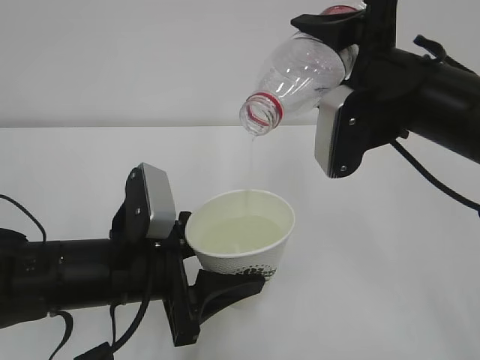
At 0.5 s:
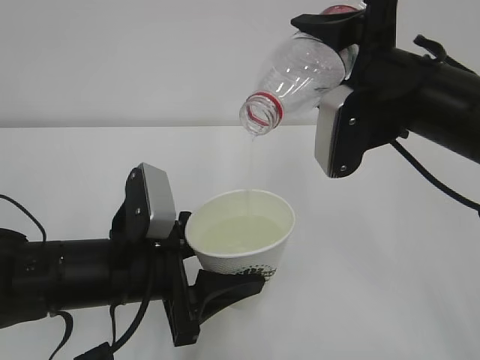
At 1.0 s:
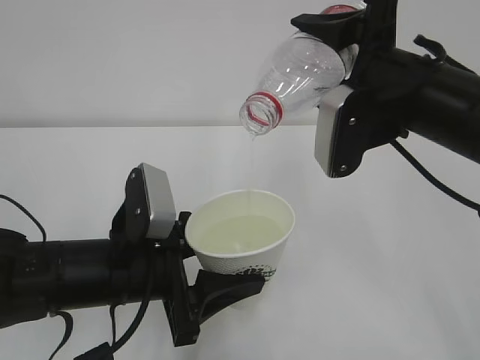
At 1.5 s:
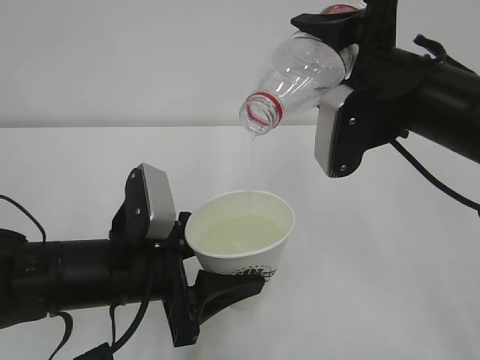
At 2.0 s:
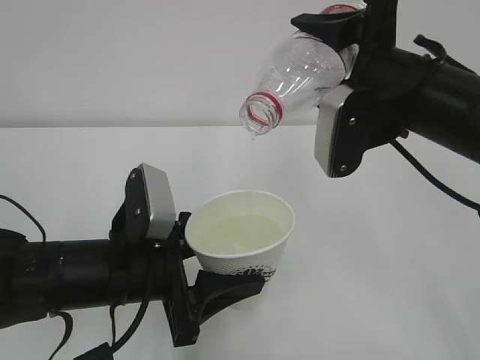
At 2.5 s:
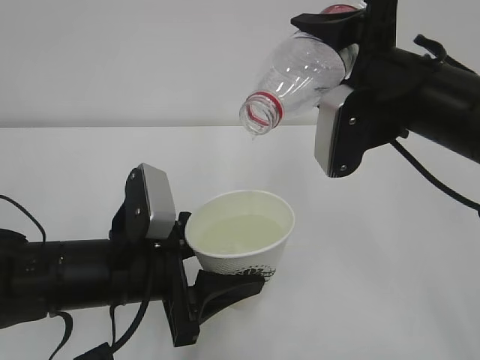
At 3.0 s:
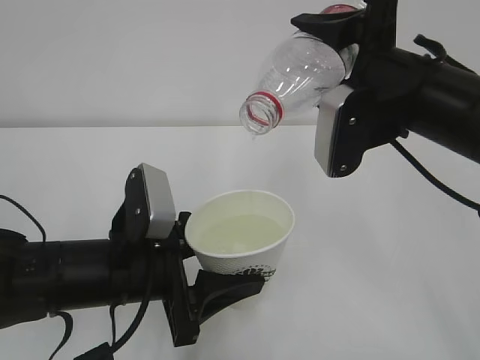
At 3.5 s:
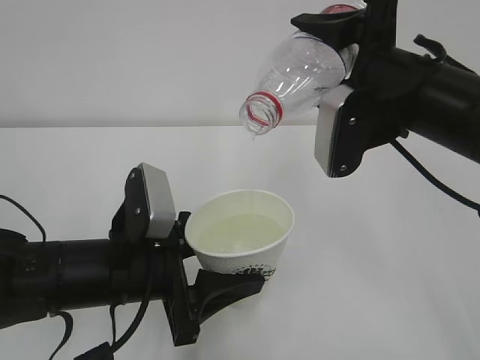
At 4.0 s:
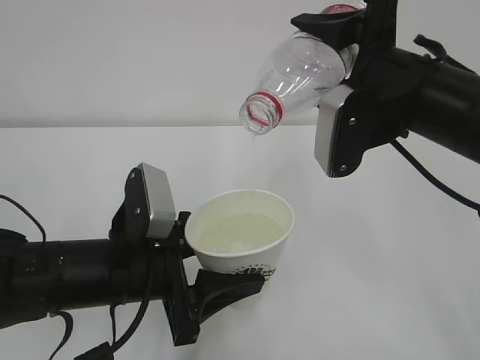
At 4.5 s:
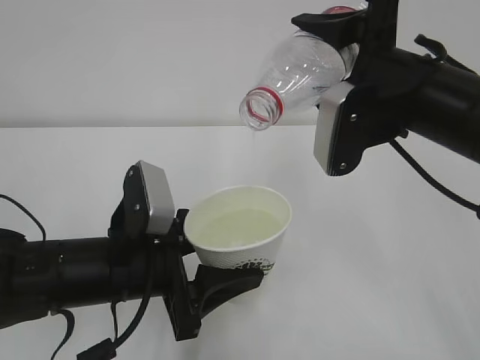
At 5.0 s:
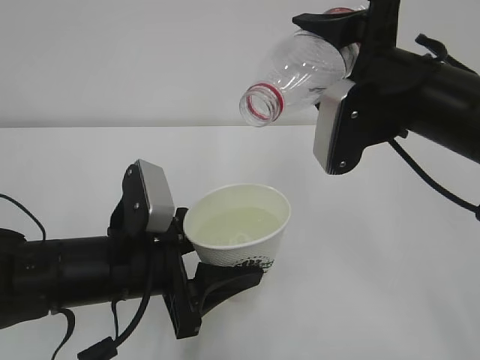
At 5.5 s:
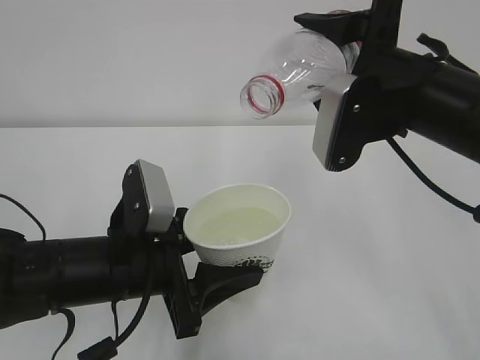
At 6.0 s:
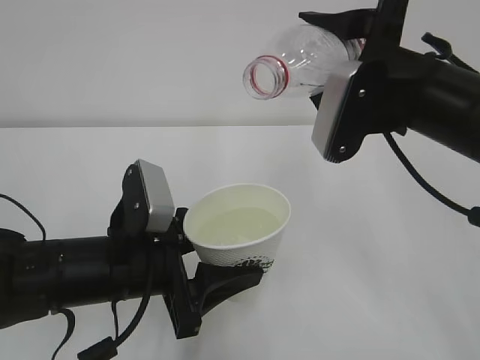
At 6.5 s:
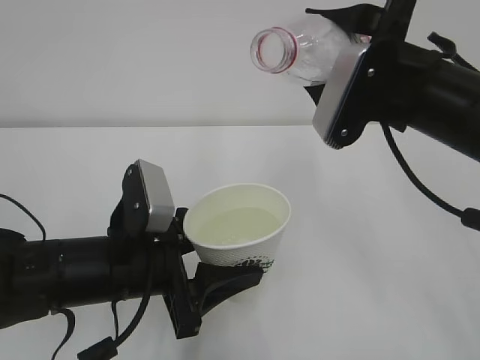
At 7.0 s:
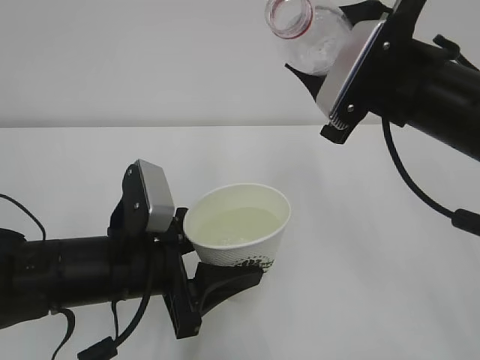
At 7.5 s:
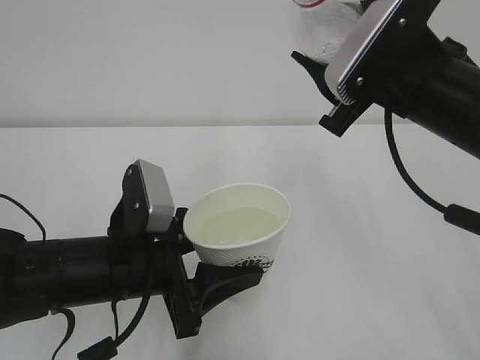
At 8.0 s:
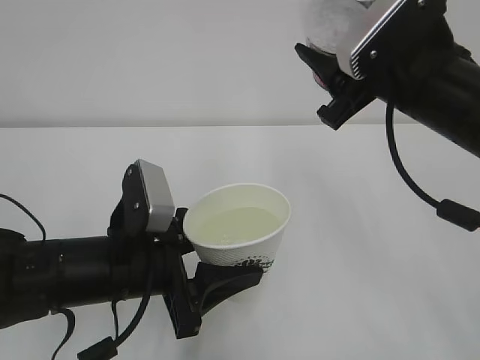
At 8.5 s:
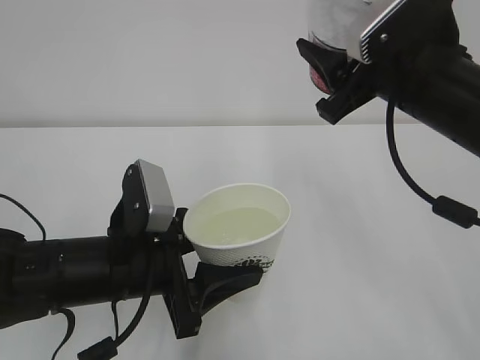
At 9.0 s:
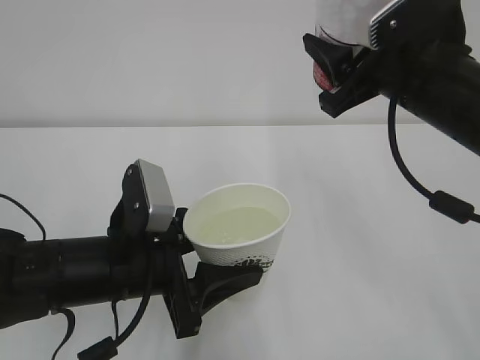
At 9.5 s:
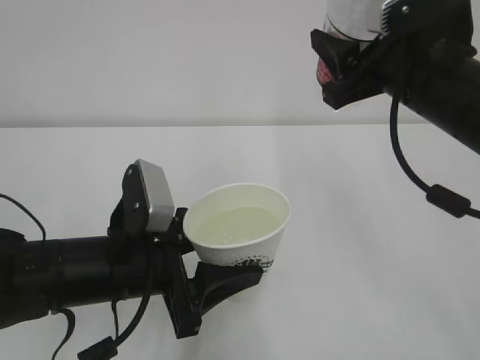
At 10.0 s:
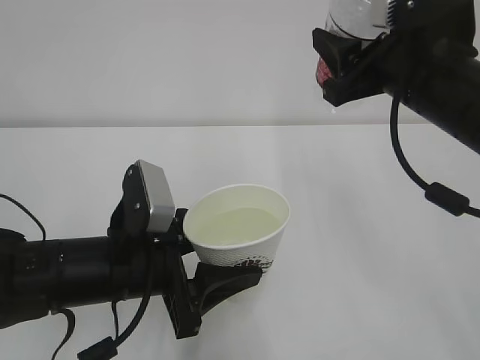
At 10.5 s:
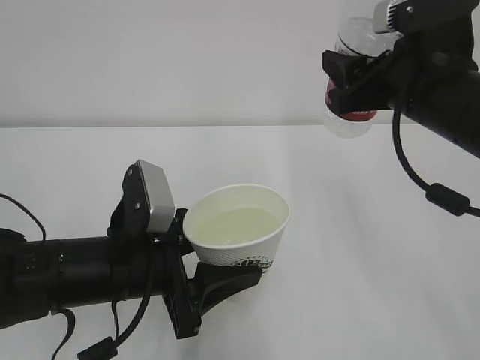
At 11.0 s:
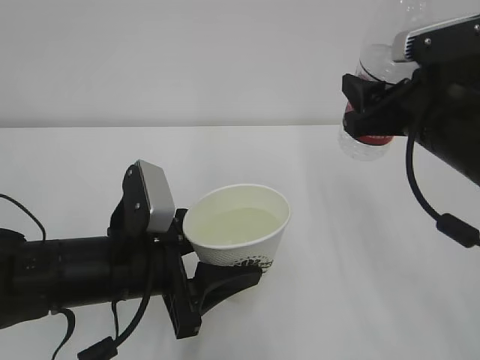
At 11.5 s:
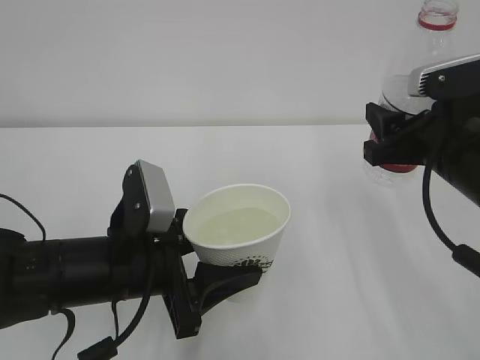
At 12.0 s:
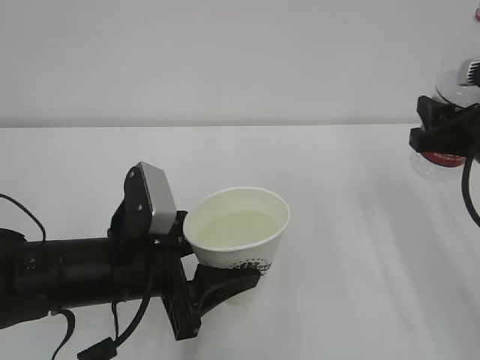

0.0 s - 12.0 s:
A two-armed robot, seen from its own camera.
0.0 s - 4.0 s: The two grippers keep their place.
4.0 s - 6.0 s: The grippers move only a little.
10.0 s - 12.0 s: The right gripper heads to the right and downward, covering some 10 cm.

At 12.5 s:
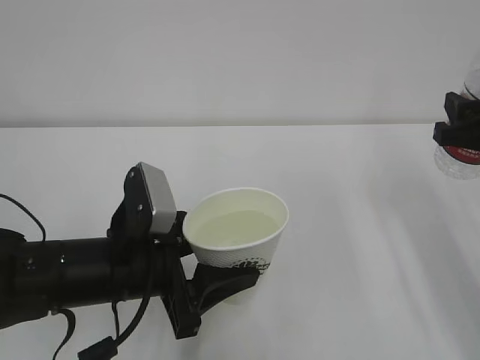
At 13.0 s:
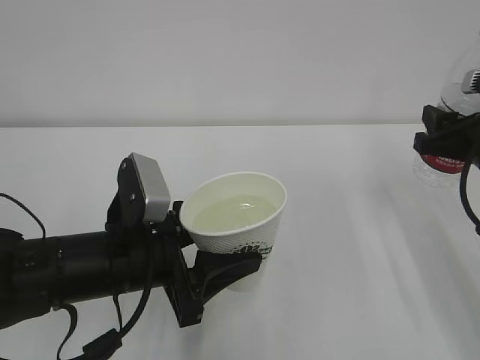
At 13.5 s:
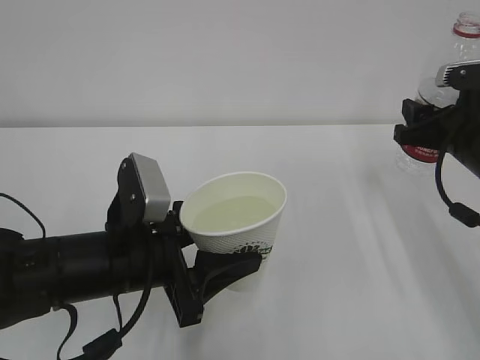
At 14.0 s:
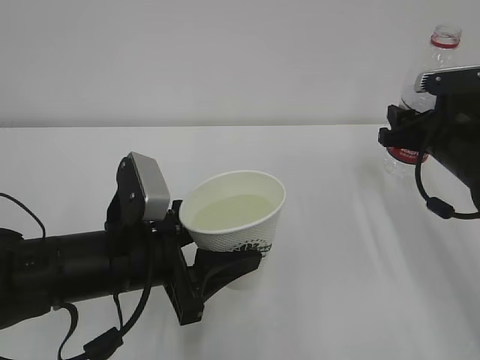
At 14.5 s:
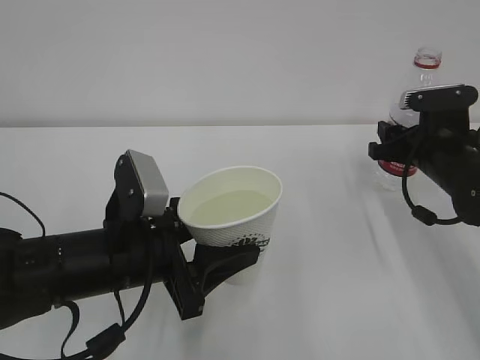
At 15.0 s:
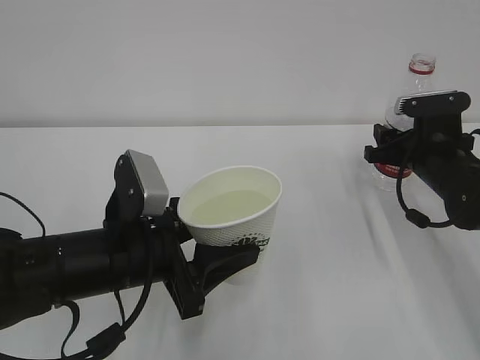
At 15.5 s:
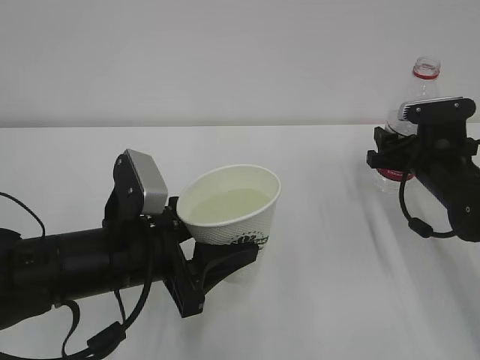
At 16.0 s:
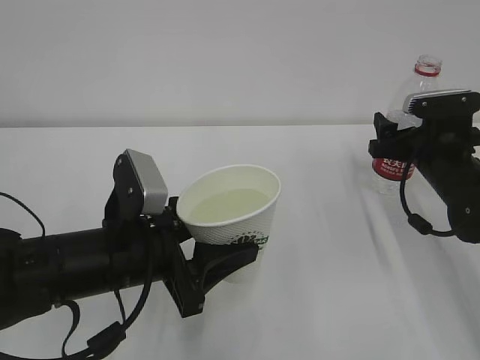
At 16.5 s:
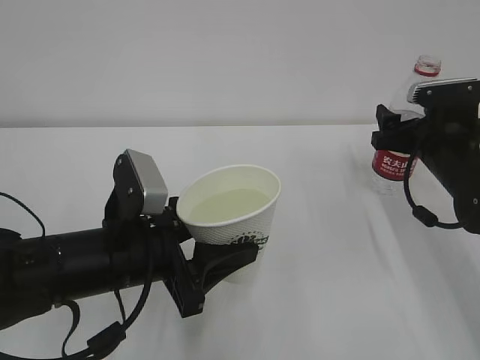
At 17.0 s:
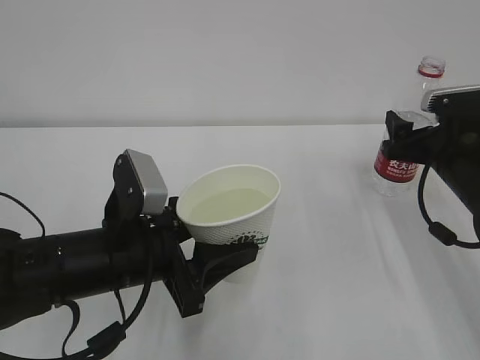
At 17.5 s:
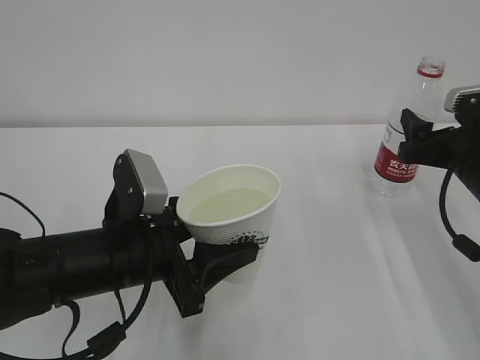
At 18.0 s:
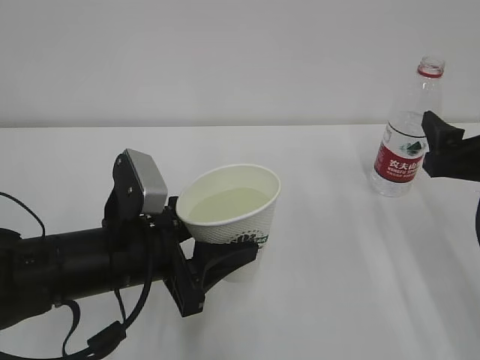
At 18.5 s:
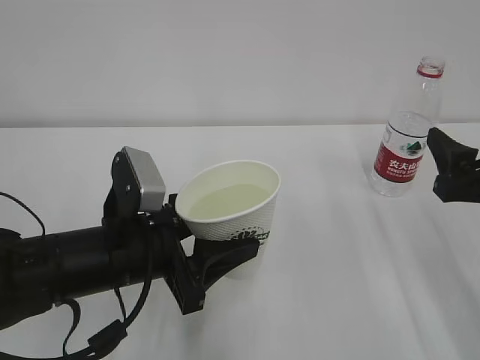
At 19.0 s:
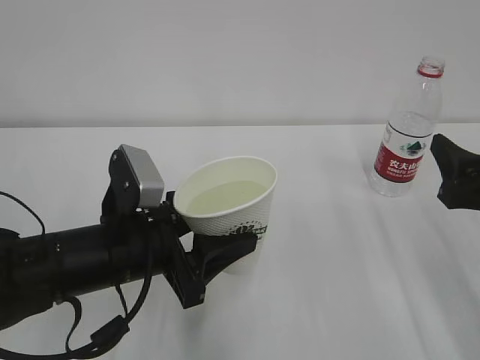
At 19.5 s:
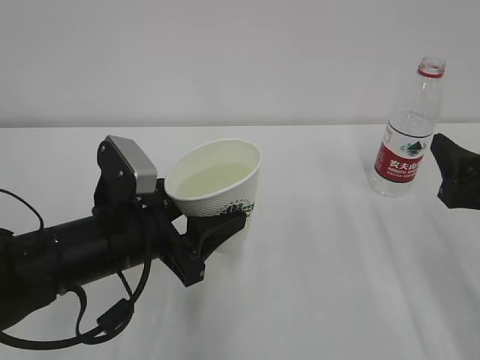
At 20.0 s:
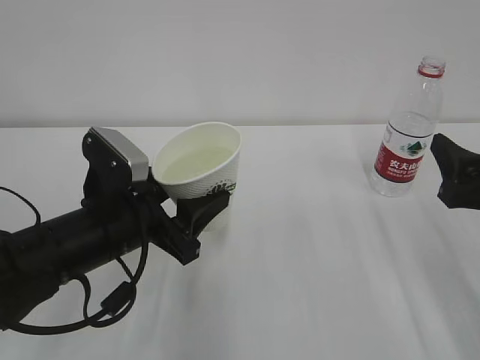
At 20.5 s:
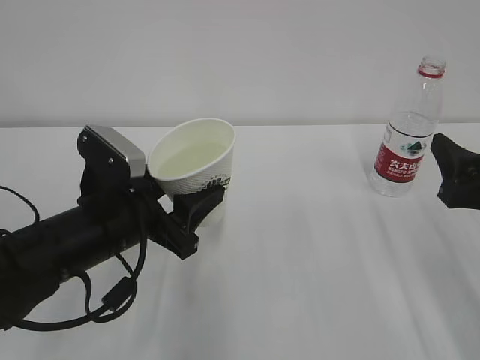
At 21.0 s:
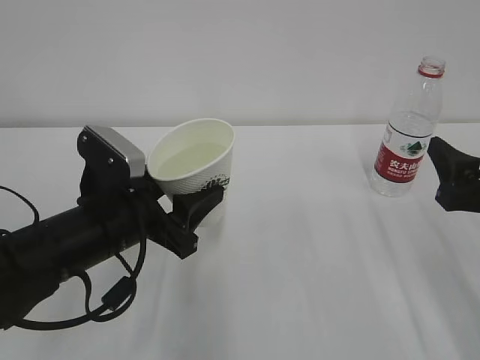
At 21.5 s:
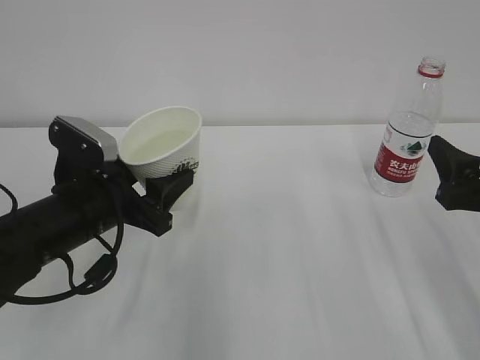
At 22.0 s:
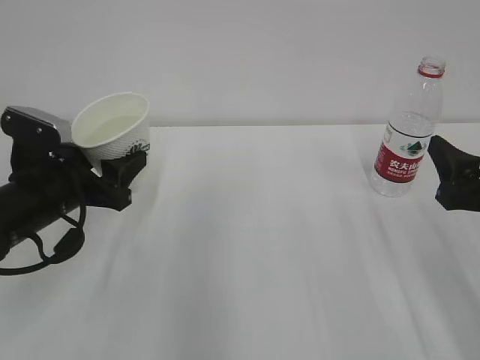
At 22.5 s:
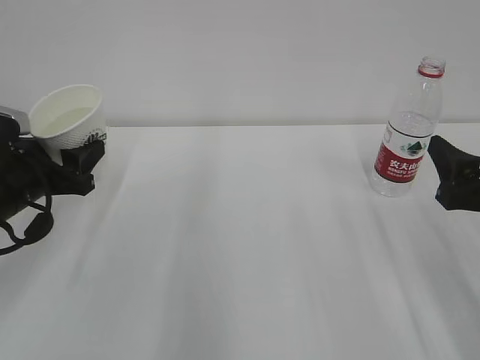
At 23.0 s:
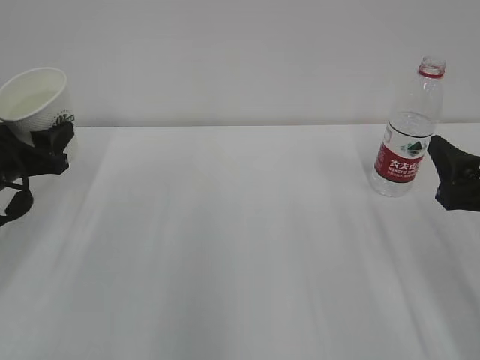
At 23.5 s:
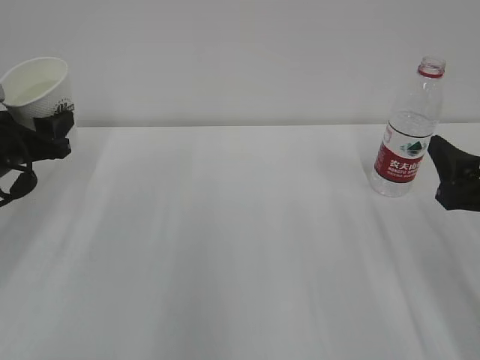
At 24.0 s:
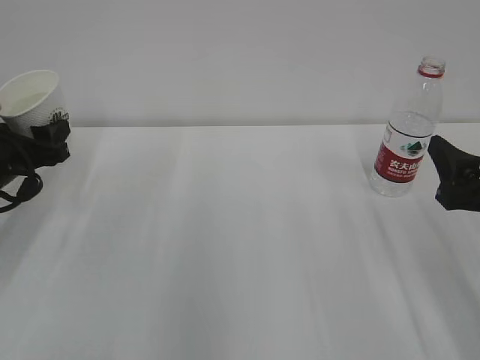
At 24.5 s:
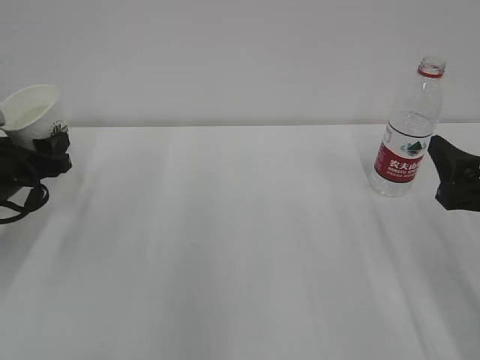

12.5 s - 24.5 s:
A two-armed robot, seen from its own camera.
12.5 s - 14.5 s: The right gripper goes some 15 cm forward and downward.
14.5 s - 16.5 s: The right gripper opens its fingers.
16.5 s - 18.5 s: The right gripper travels backward by roughly 15 cm.
20.5 s - 22.5 s: The left gripper goes about 15 cm to the left and forward.
22.5 s - 24.5 s: The left gripper shifts by some 5 cm.

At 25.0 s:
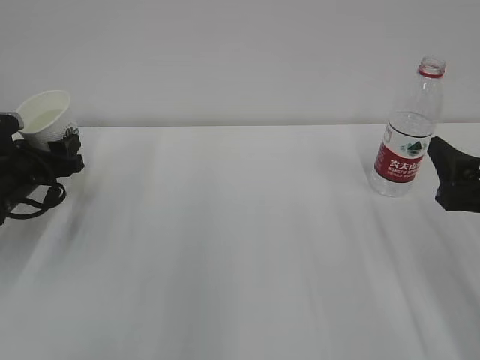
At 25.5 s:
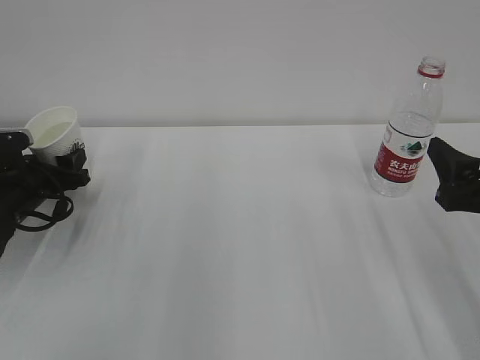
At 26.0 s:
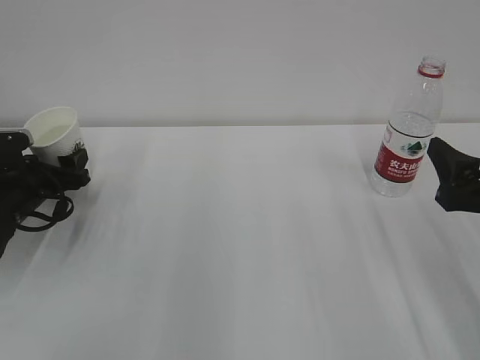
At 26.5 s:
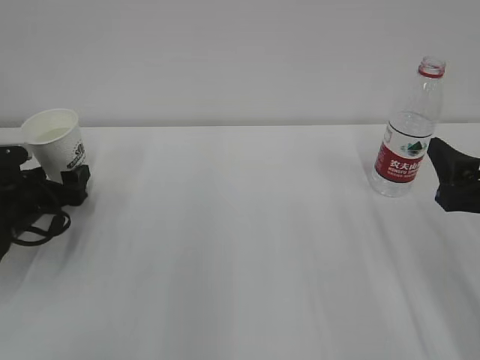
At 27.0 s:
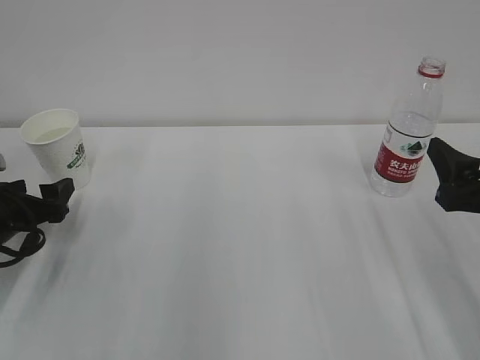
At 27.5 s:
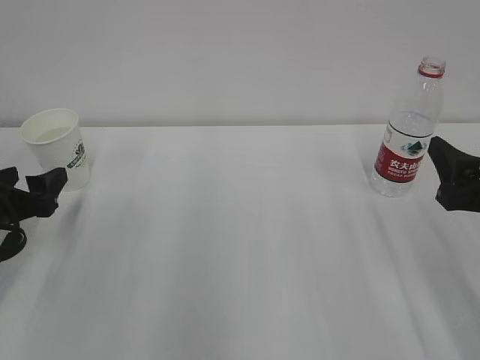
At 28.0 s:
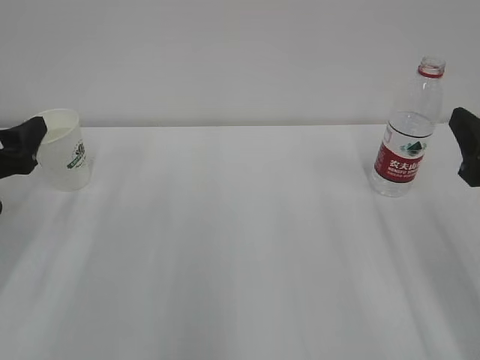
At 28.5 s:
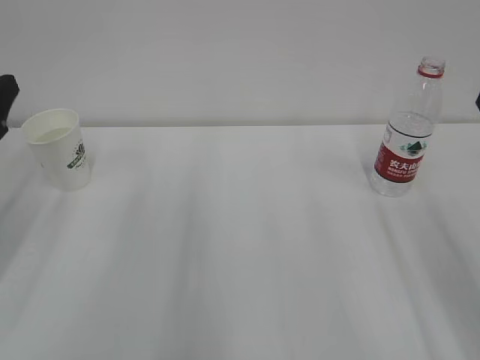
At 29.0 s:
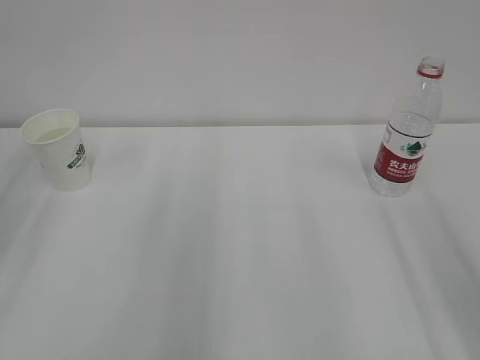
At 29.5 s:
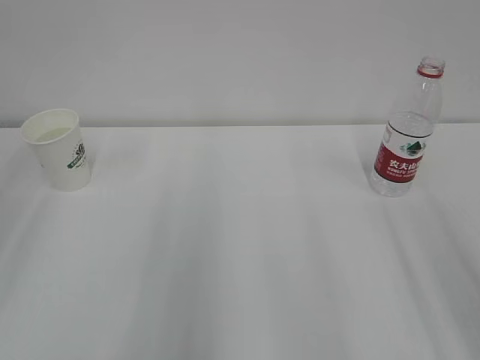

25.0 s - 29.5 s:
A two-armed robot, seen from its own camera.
25.0 s - 27.0 s: The left gripper travels backward by some 5 cm, and opens up.
27.0 s - 29.5 s: The right gripper moves upward and backward, about 10 cm; the left gripper heads upward and backward, covering some 25 cm.
